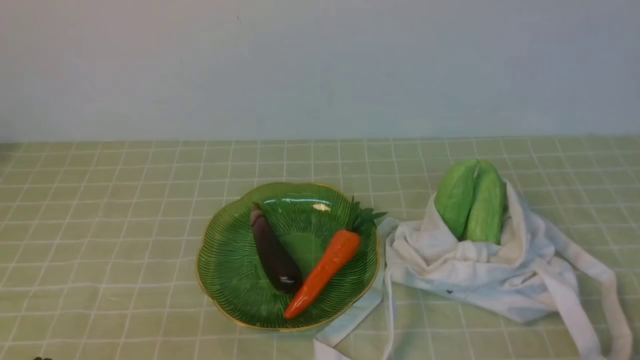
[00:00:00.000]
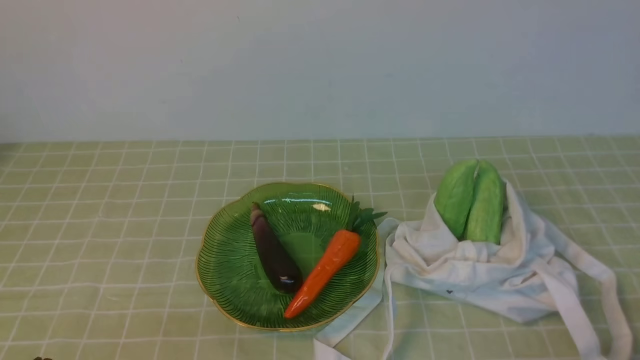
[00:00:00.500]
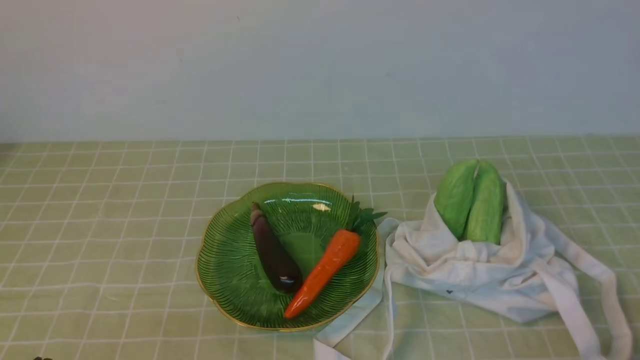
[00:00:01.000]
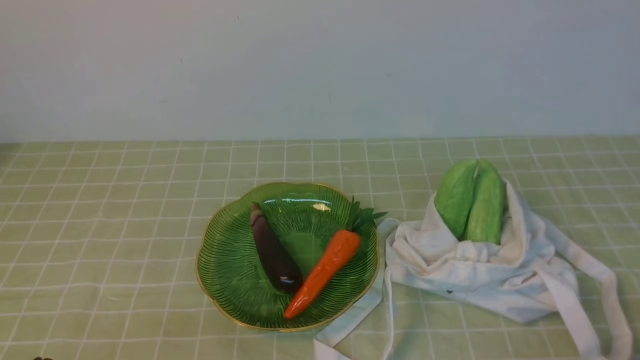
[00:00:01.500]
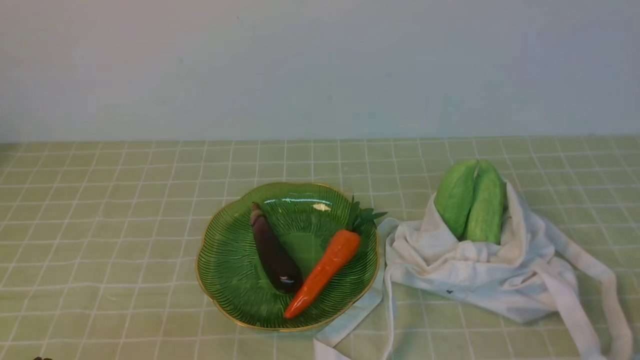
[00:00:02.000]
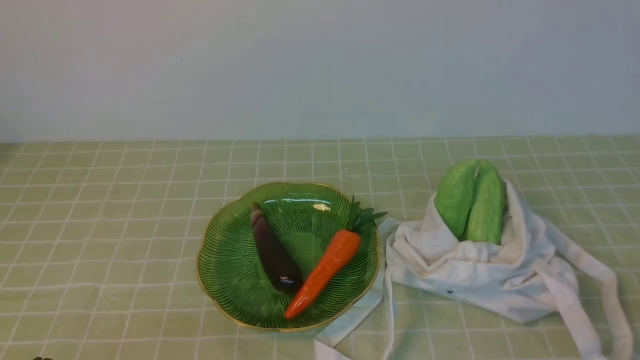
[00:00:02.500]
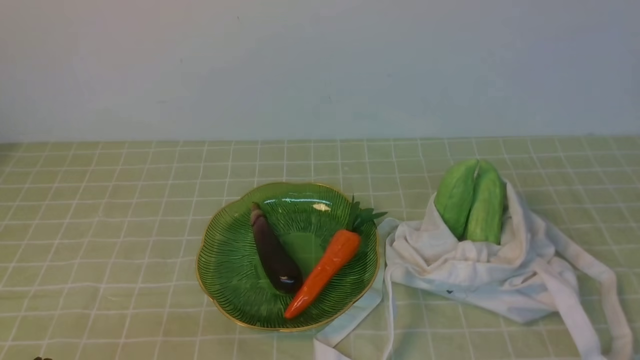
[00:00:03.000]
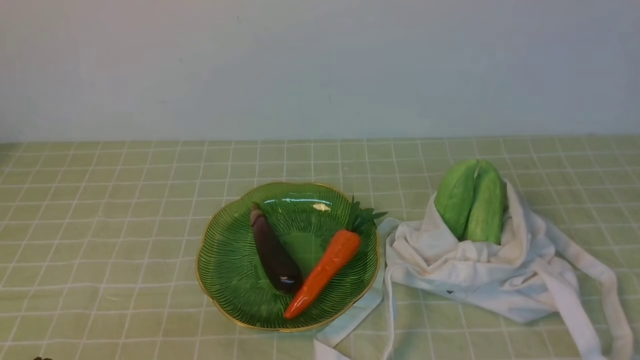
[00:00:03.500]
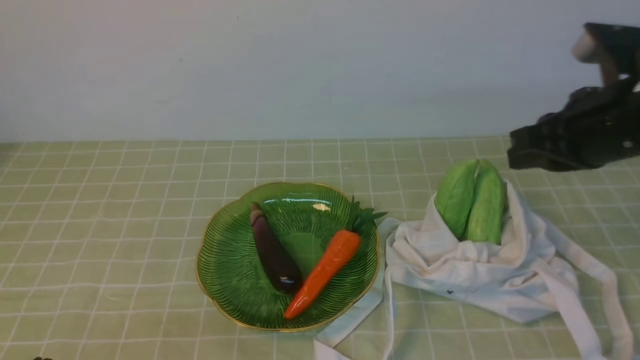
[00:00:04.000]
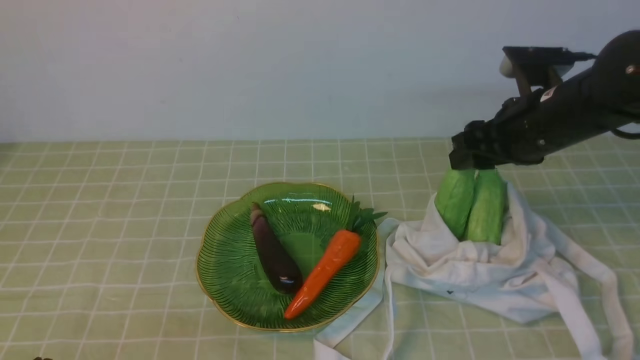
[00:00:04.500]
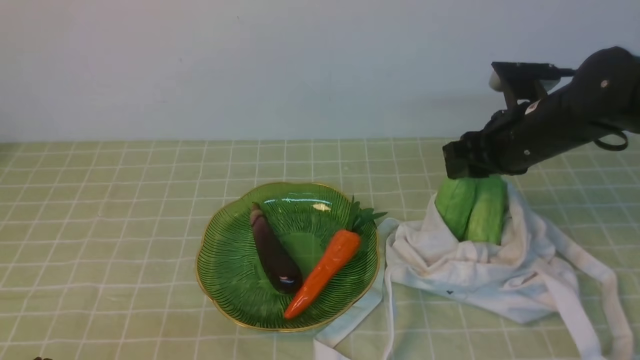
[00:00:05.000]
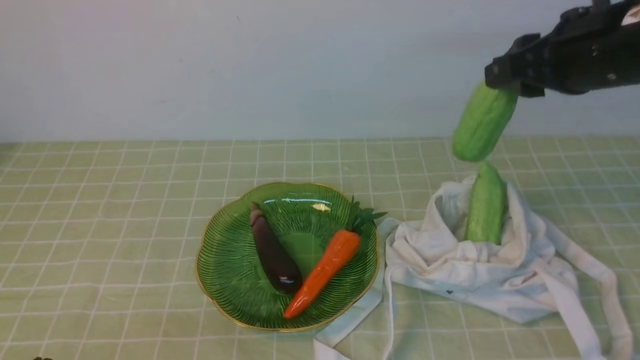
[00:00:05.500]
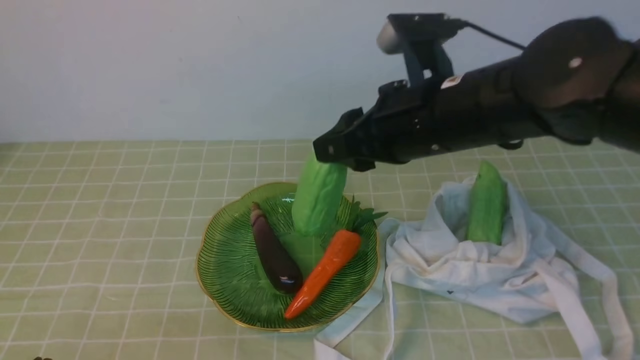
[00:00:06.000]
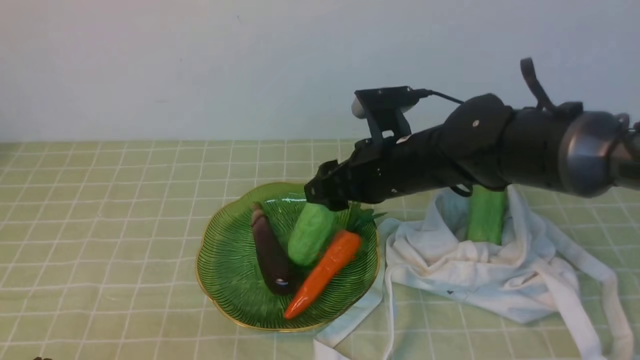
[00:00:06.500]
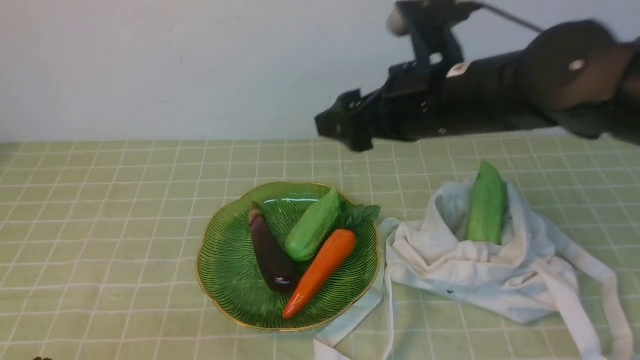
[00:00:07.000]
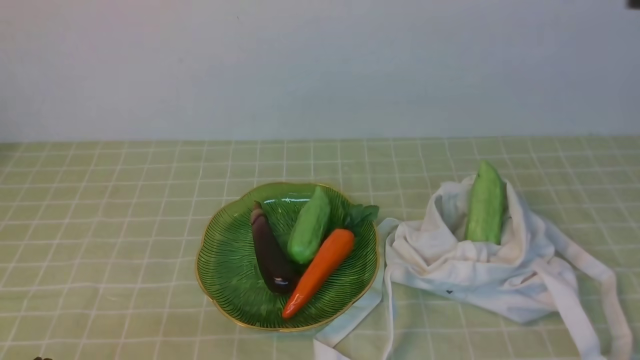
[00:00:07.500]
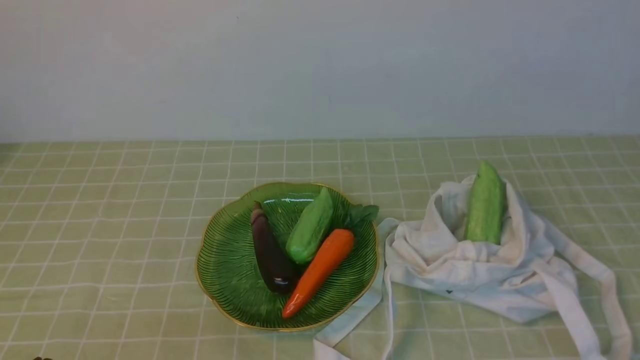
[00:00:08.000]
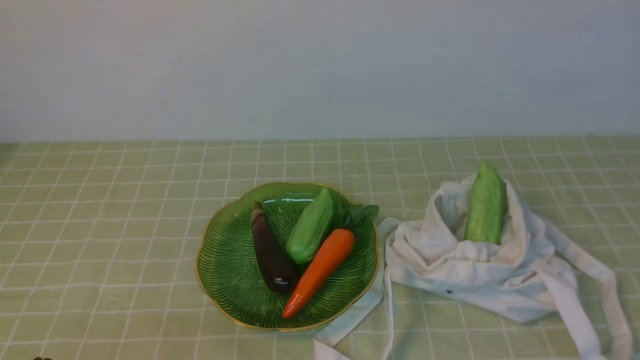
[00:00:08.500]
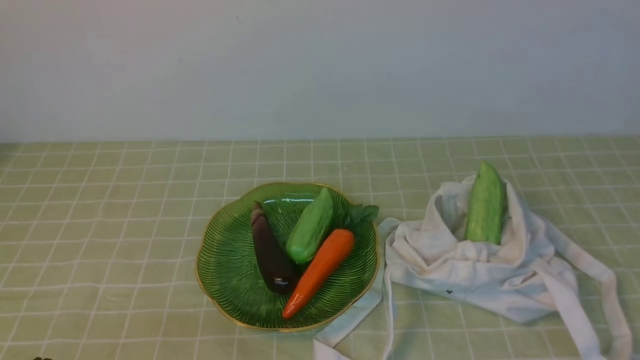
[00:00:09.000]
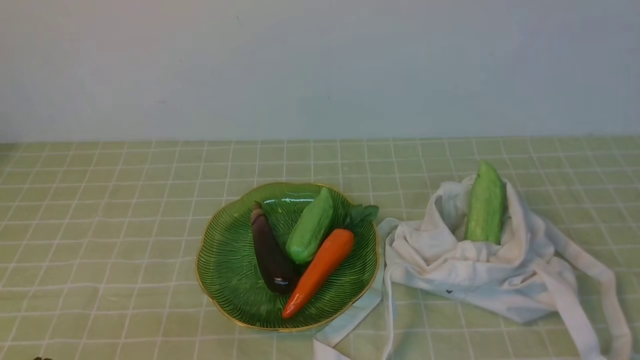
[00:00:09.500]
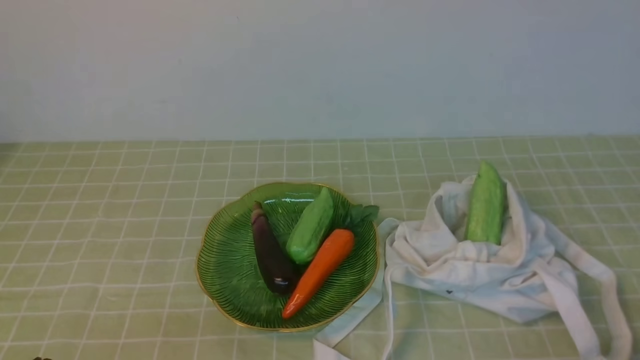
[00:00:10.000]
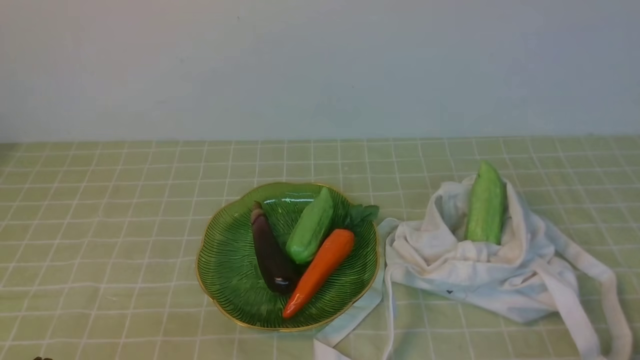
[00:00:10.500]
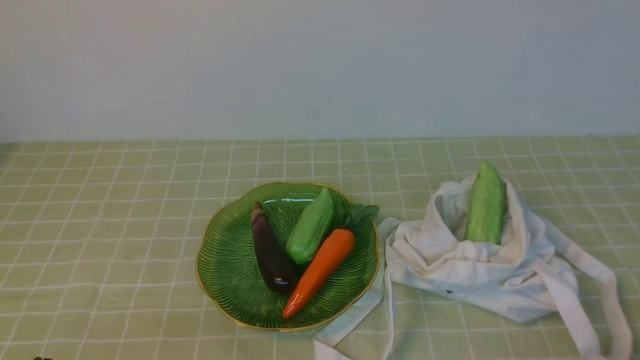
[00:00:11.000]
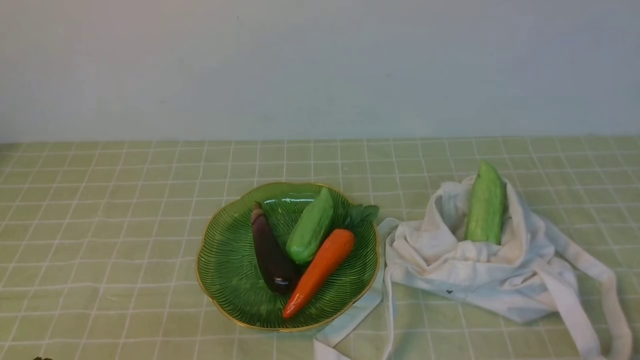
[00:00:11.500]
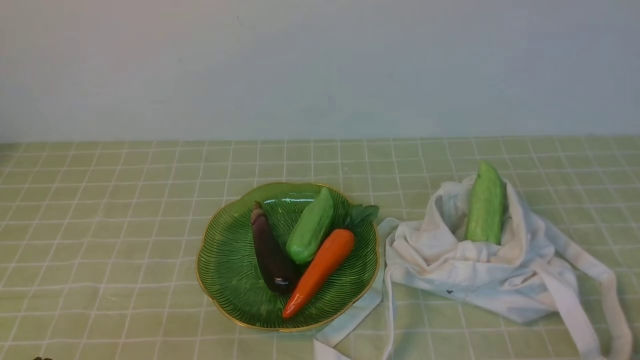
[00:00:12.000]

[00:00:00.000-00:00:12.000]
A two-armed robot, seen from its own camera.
Task of the whole recording: take vegetables from bag on green coffee tablecloth place on plate.
Step, 00:00:00.000 to 00:00:05.000: Grasp the bitter melon with right gripper.
Step, 00:00:05.500 to 00:00:06.500: Place the bitter melon on the plate with right gripper.
00:00:02.000 to 00:00:04.000: The right gripper is displaced forward and upward by roughly 25 cm.
00:00:04.000 to 00:00:06.000: The right gripper shifts roughly 15 cm to the left, and opens its fingers.
00:00:06.000 to 00:00:08.000: The right gripper goes about 30 cm backward, to the right and upward, and closes up.
00:00:10.000 to 00:00:12.000: Both grippers stay put.

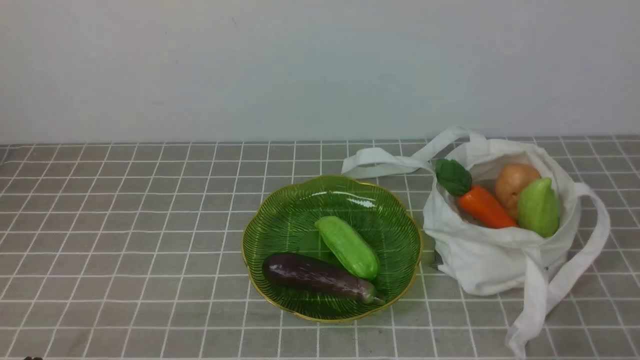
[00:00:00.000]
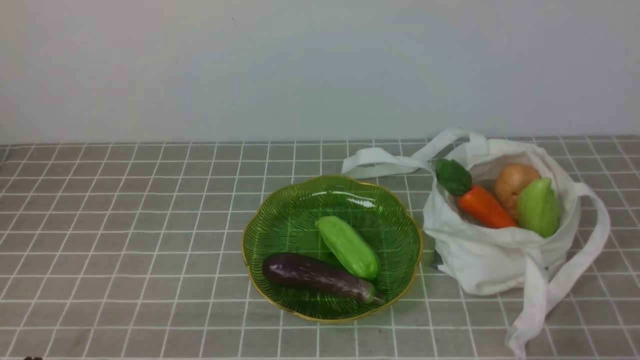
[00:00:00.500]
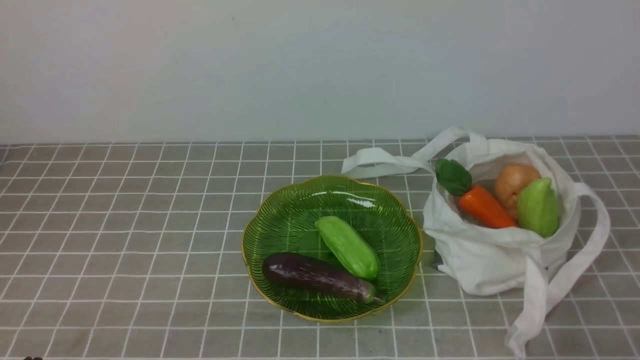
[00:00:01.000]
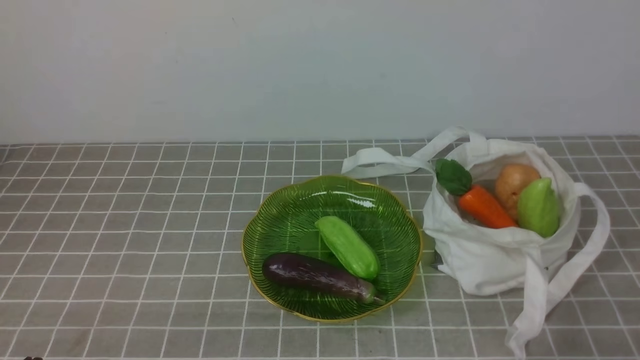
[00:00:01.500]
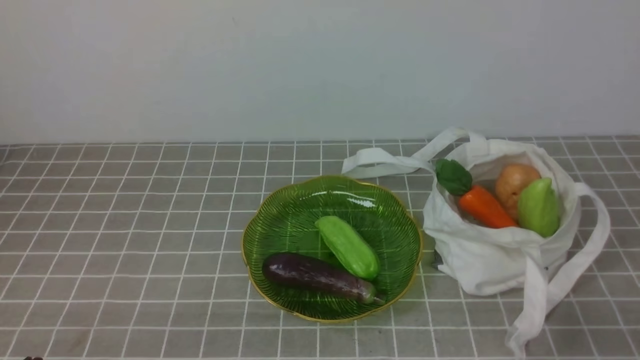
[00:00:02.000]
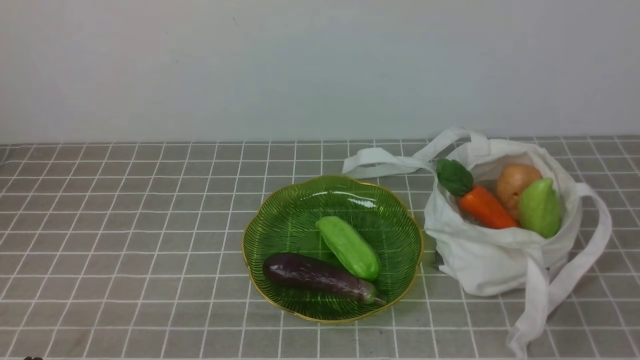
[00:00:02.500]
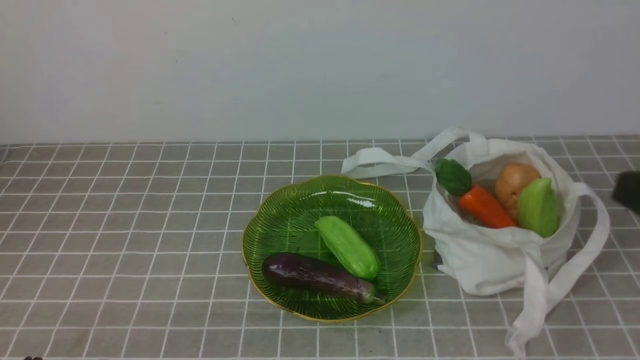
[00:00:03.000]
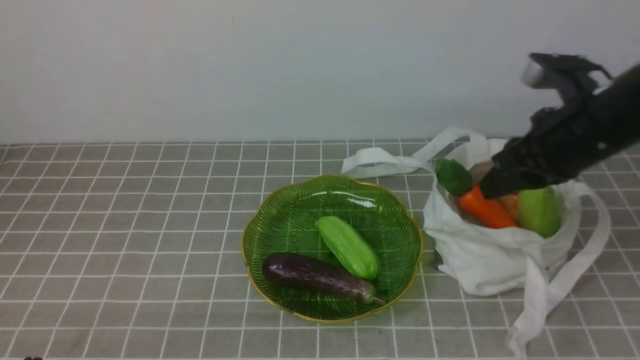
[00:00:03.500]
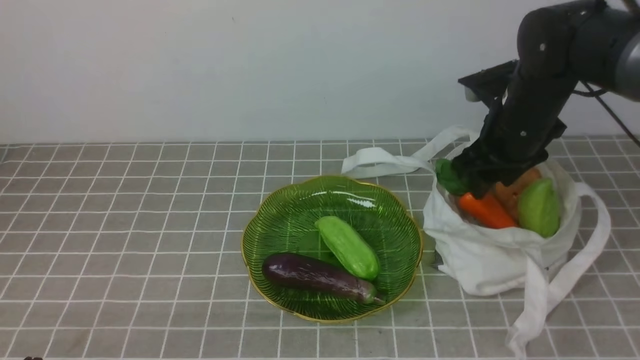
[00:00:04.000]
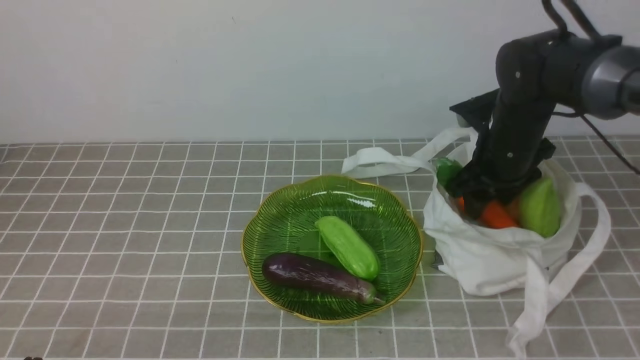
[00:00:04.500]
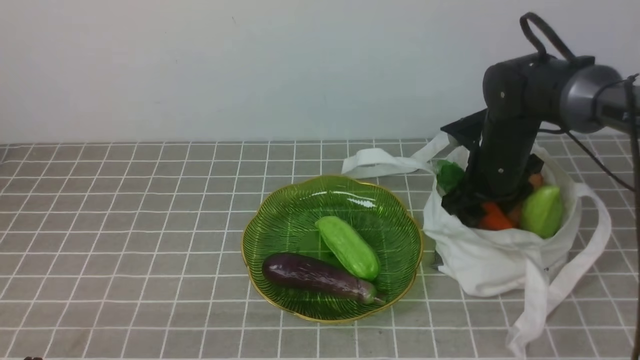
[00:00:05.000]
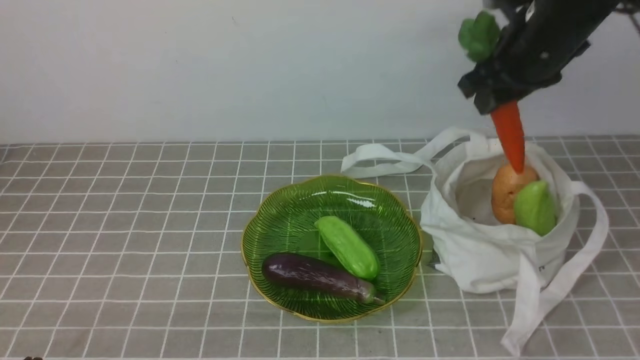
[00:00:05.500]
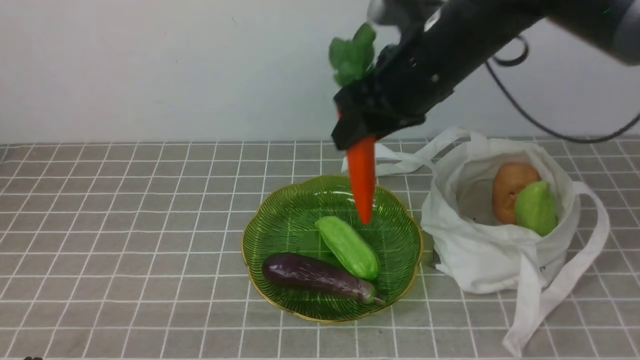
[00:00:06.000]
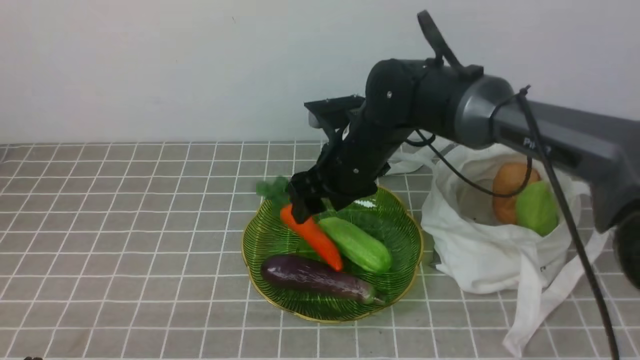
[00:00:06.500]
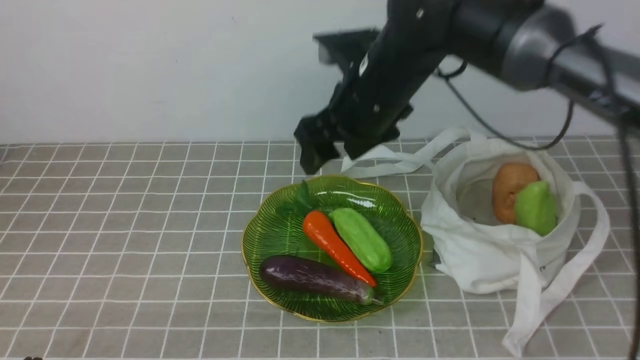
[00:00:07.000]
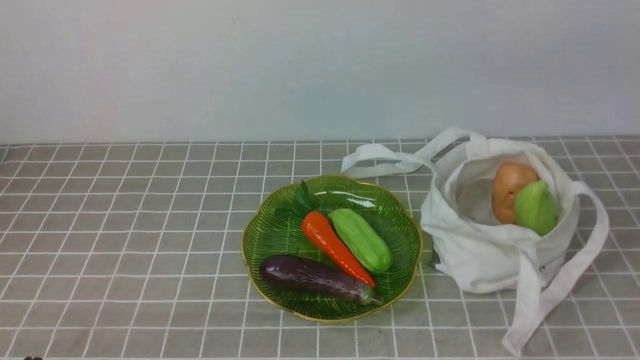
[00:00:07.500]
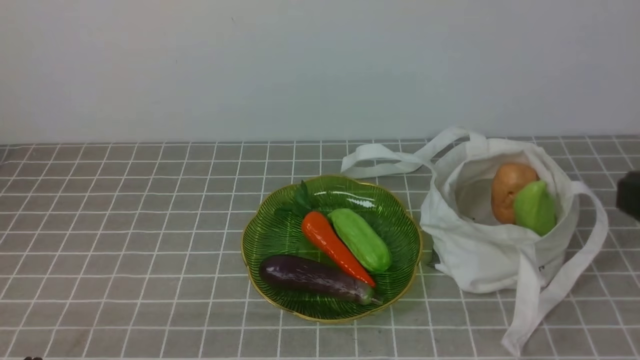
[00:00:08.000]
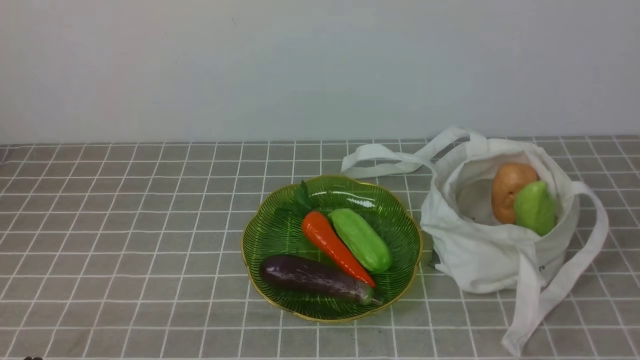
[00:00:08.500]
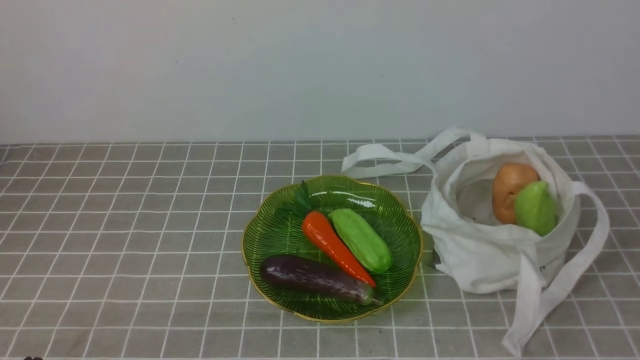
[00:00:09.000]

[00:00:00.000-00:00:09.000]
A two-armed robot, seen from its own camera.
Task of the whole recording: take vegetables from bag on grey coffee tablecloth place on plate.
Step, 00:00:00.000 to 00:00:05.000: Grasp the carrot with right gripper.
Step, 00:00:05.500 to 00:00:07.000: Place the carrot on the plate with right gripper.
00:00:02.000 to 00:00:04.500: The right gripper goes some 35 cm forward, and opens its fingers.
00:00:04.500 to 00:00:07.000: The right gripper goes roughly 20 cm to the left and upward.
00:00:07.000 to 00:00:09.000: The right gripper is displaced backward and to the right by about 35 cm, and closes.
